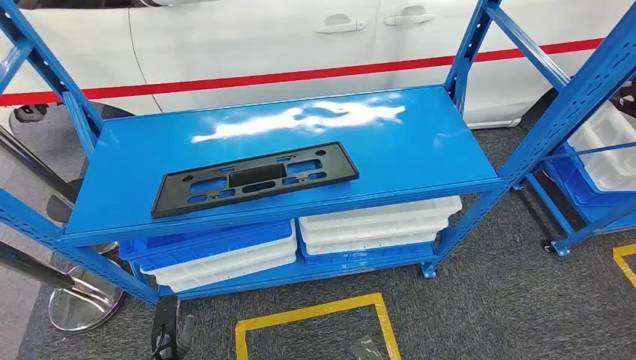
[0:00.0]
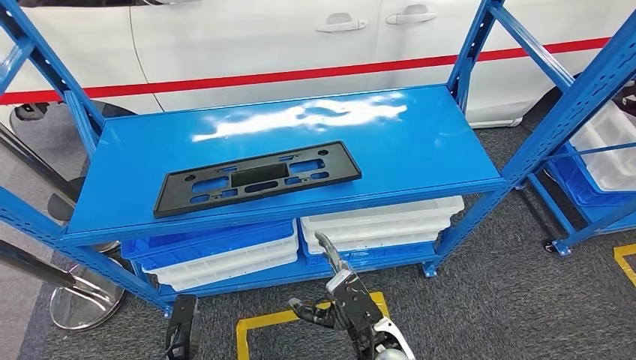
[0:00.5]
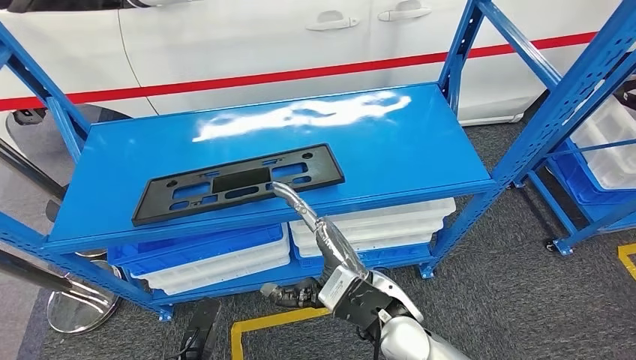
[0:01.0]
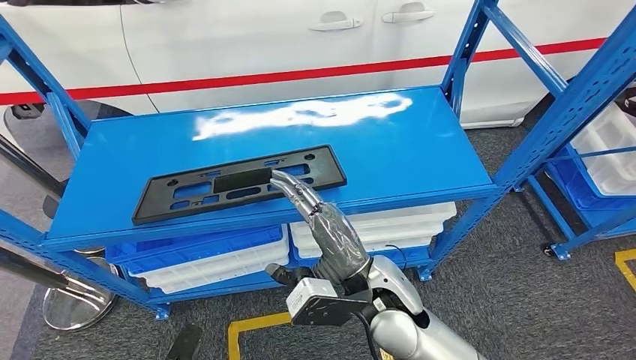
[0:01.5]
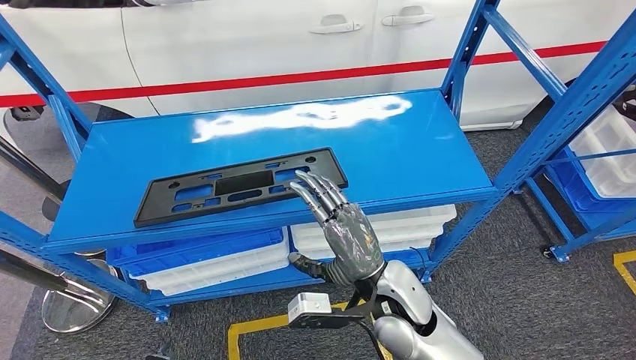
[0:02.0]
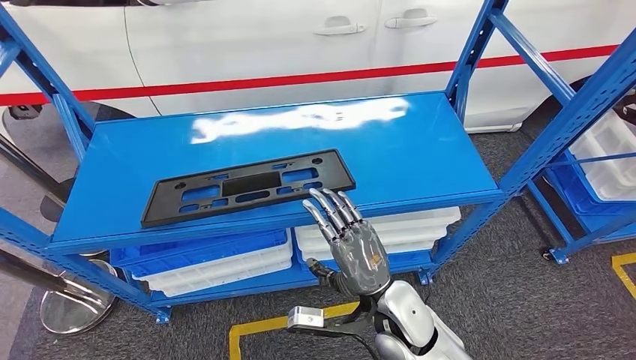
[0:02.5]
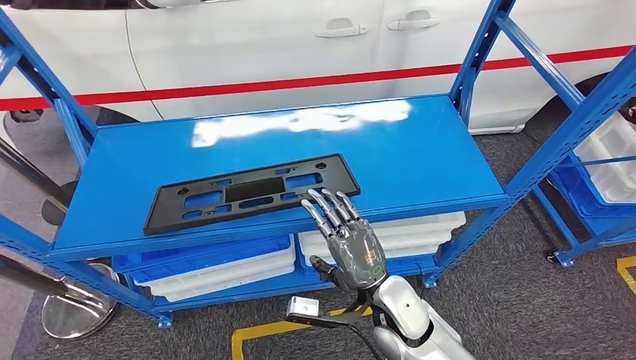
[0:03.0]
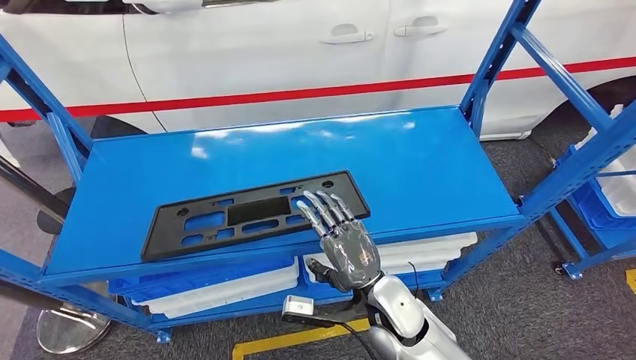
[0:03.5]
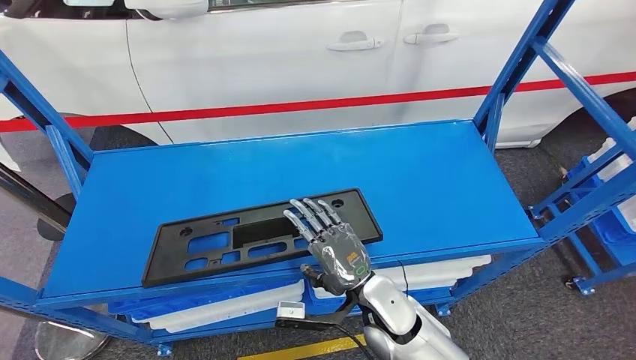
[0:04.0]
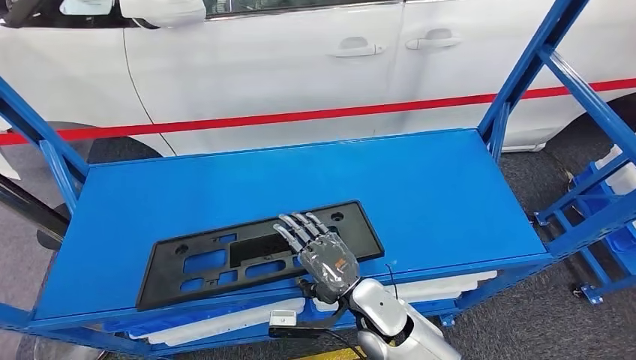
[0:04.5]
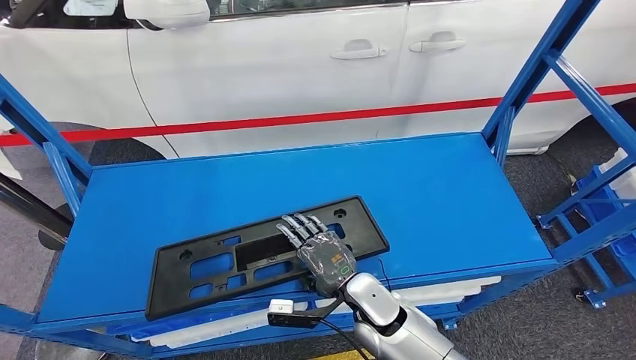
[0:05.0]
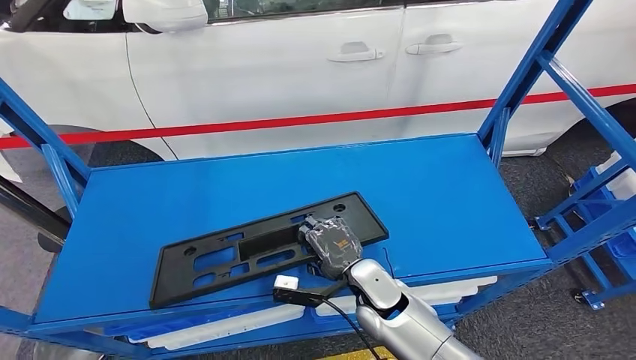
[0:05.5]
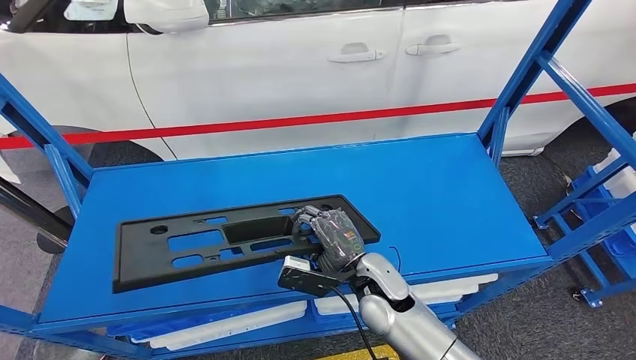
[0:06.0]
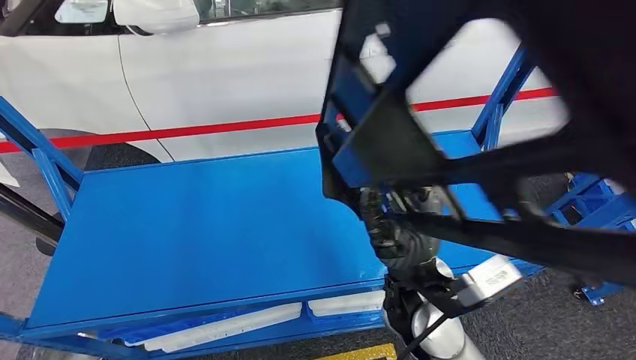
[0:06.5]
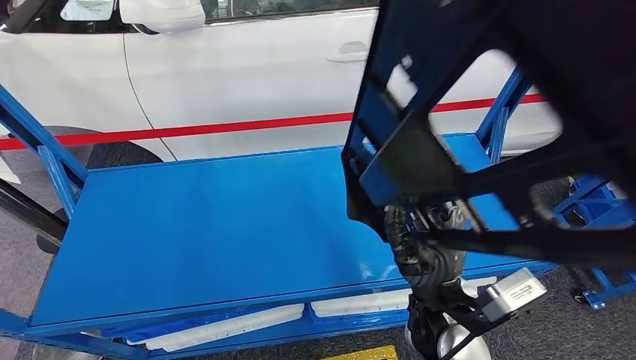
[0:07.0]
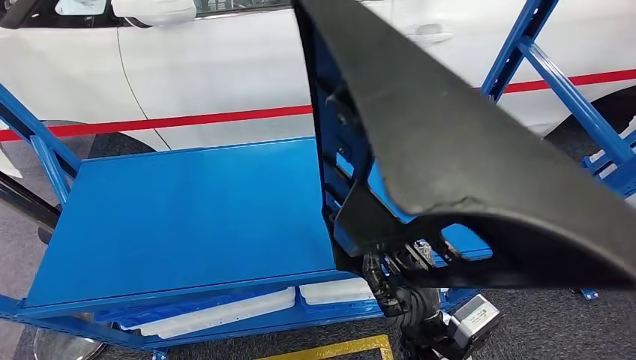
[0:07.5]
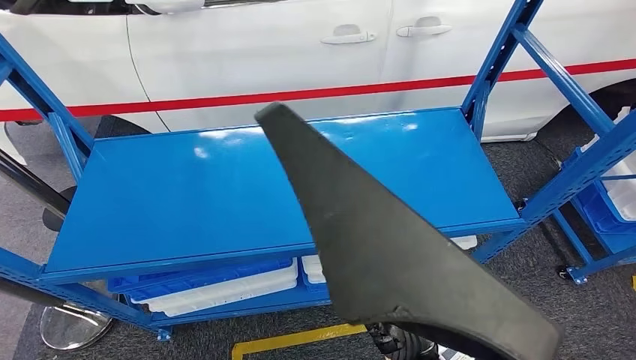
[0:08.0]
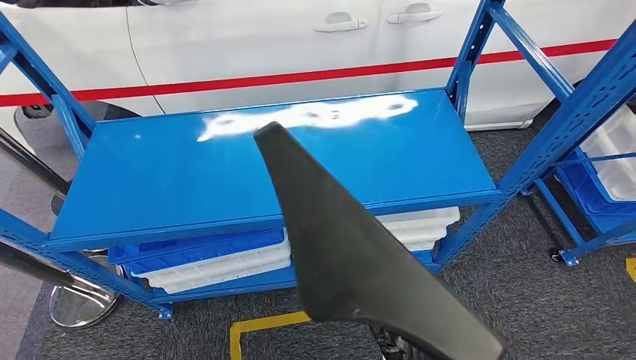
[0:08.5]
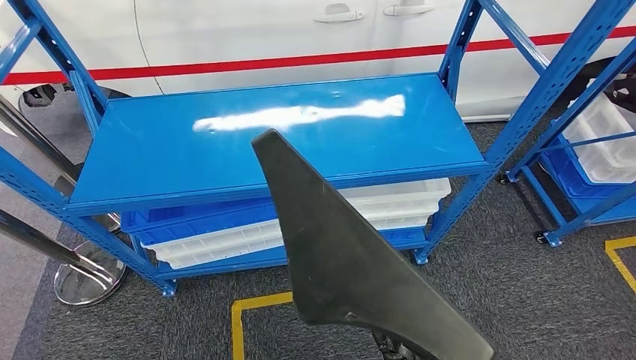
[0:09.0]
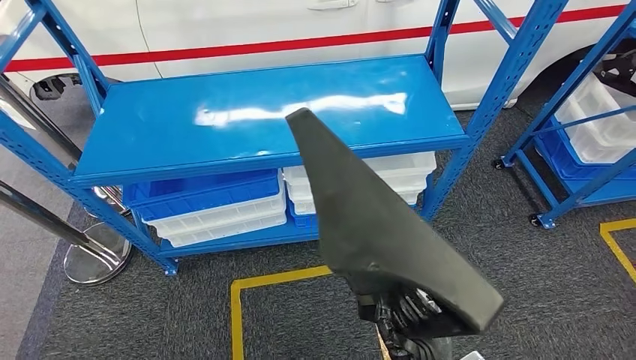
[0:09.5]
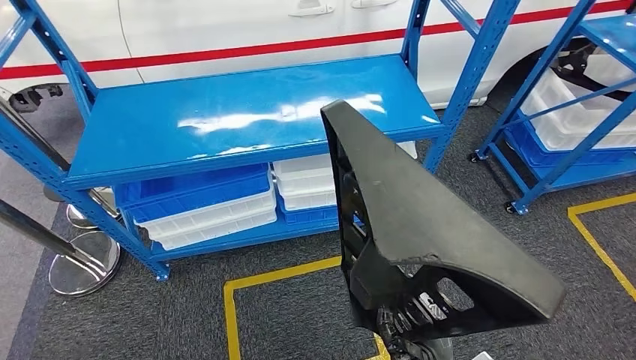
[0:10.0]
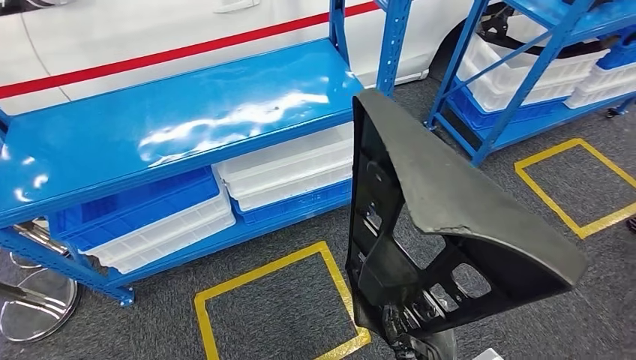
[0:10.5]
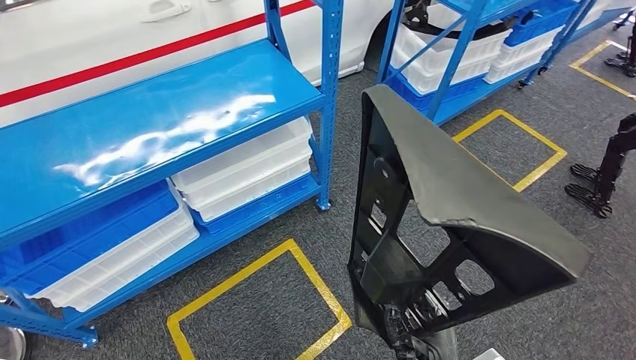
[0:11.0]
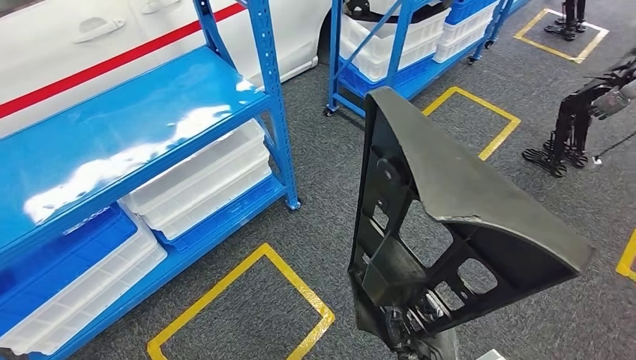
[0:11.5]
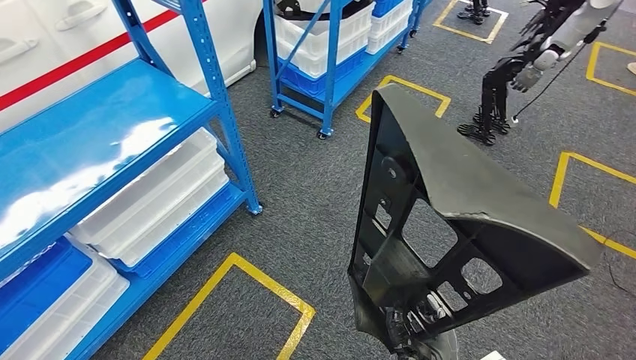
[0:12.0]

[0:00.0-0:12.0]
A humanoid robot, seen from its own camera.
Step, 0:00.0 to 0:06.0: Pick up the large material from the shelf.

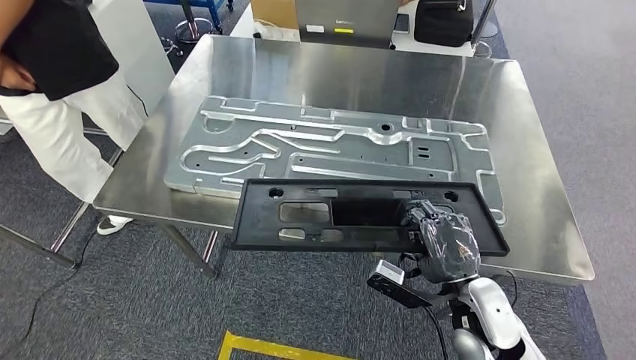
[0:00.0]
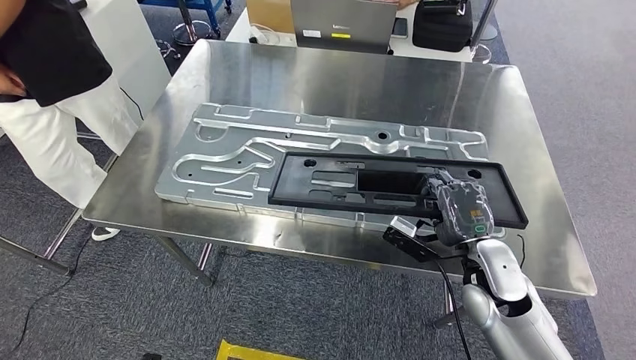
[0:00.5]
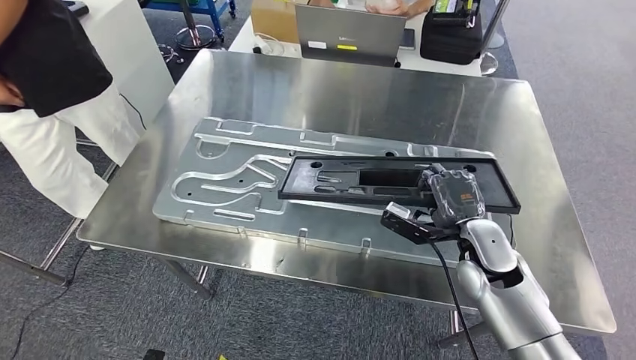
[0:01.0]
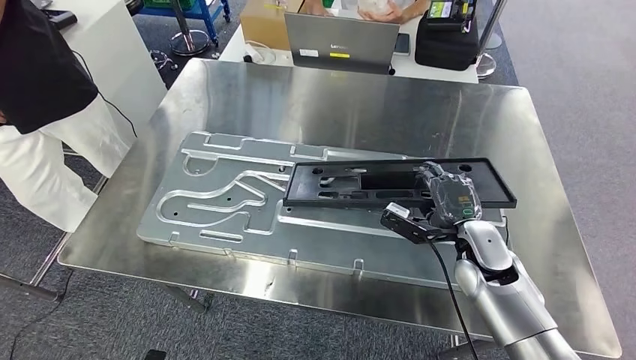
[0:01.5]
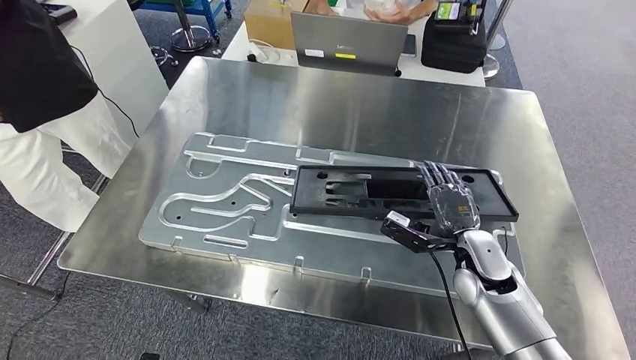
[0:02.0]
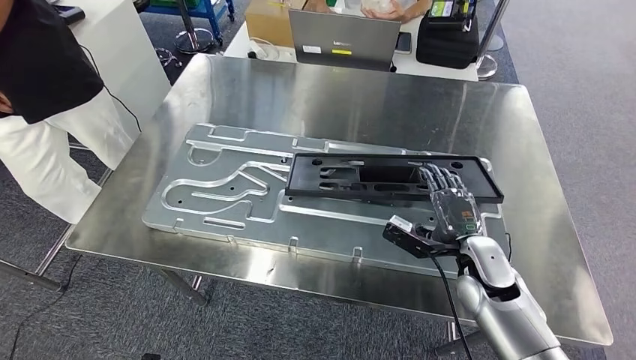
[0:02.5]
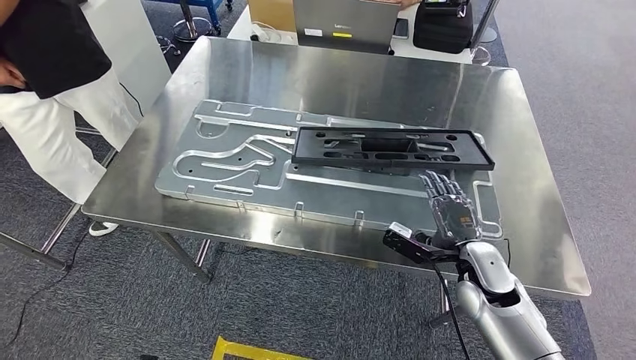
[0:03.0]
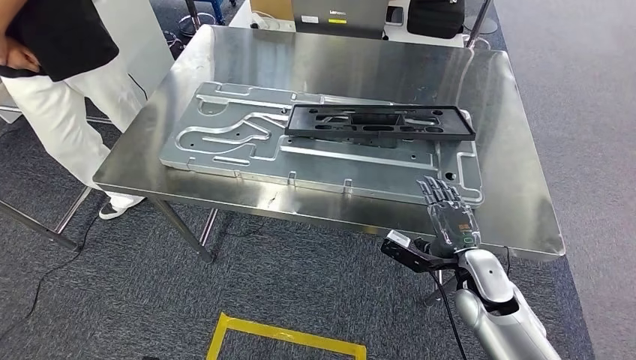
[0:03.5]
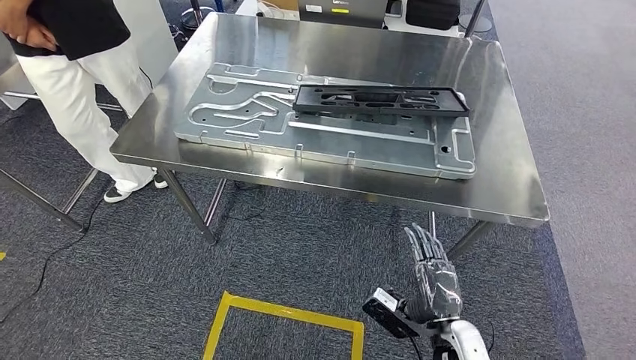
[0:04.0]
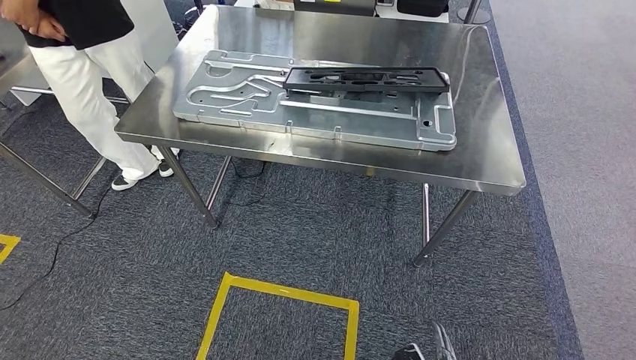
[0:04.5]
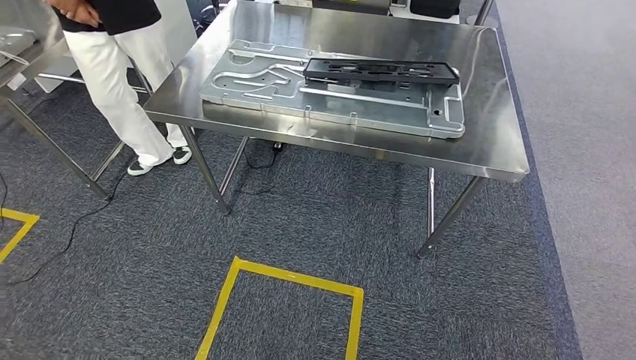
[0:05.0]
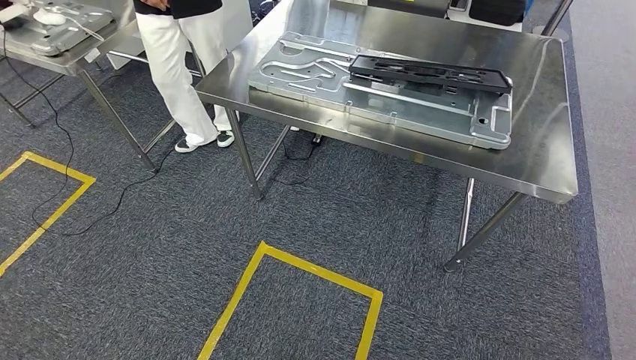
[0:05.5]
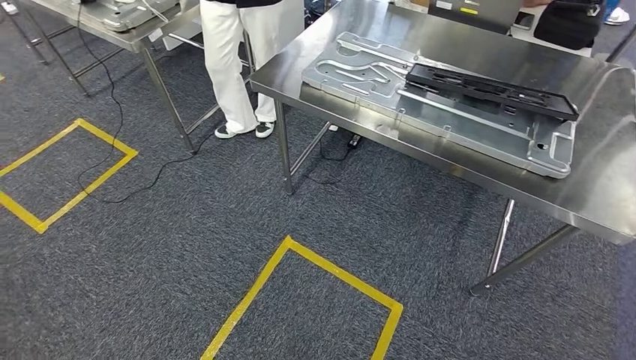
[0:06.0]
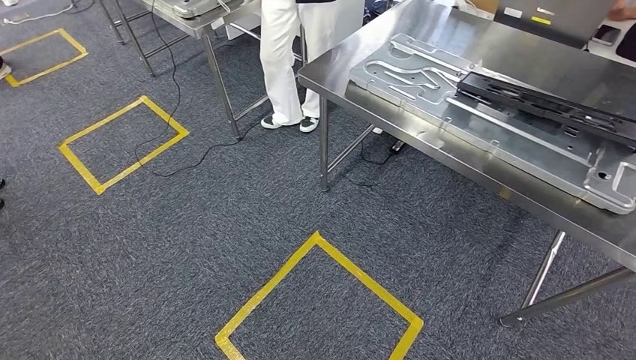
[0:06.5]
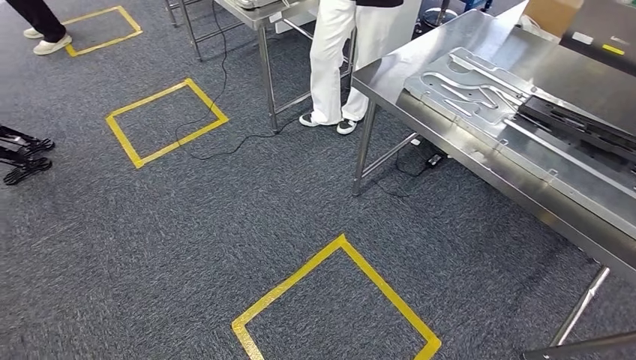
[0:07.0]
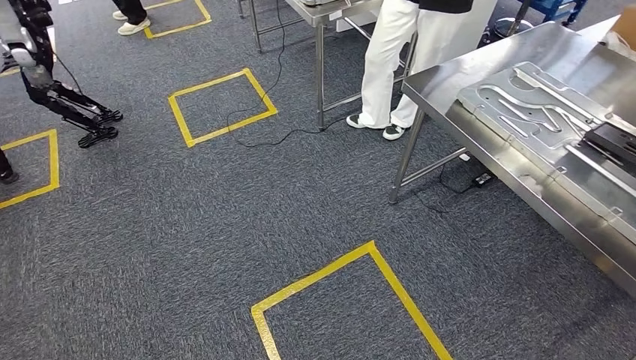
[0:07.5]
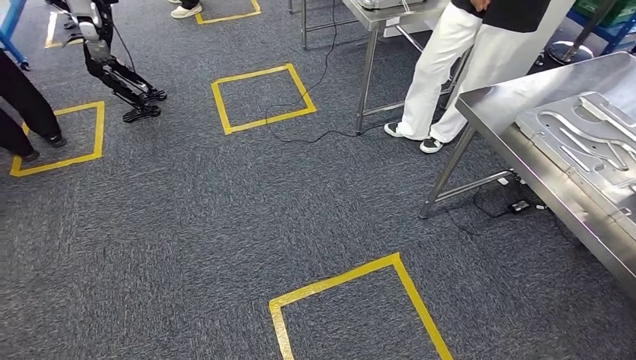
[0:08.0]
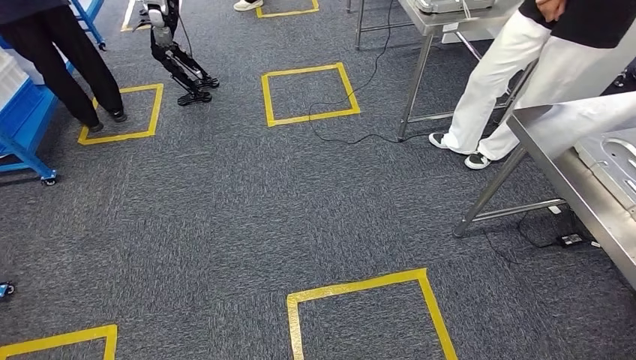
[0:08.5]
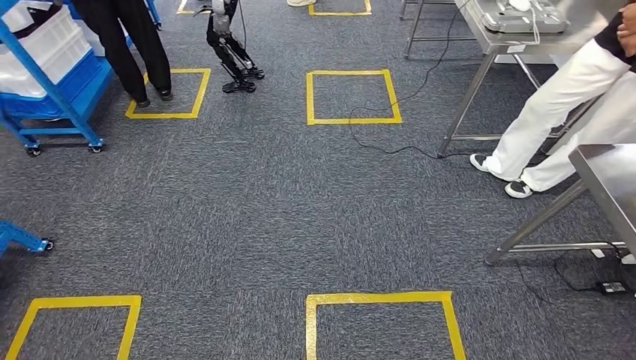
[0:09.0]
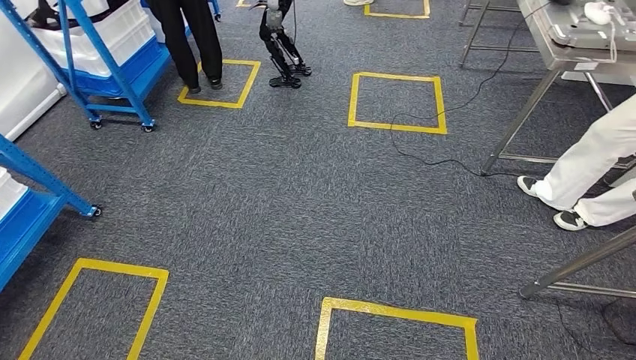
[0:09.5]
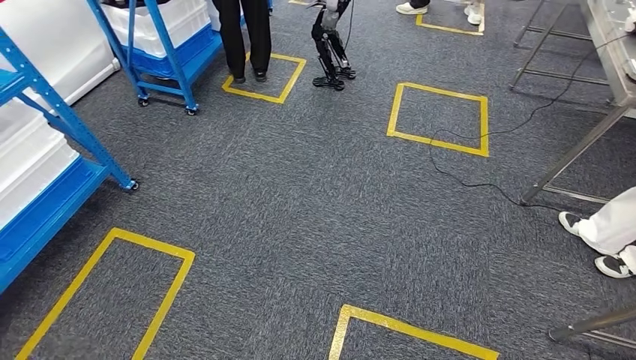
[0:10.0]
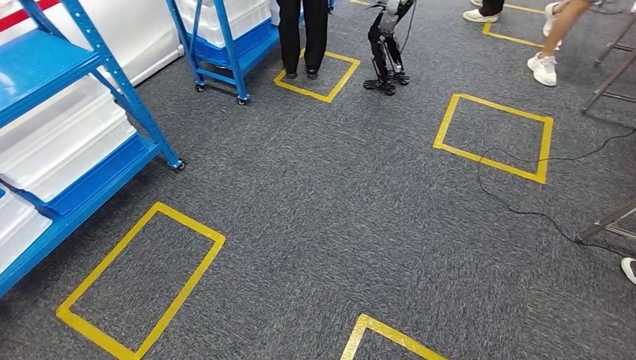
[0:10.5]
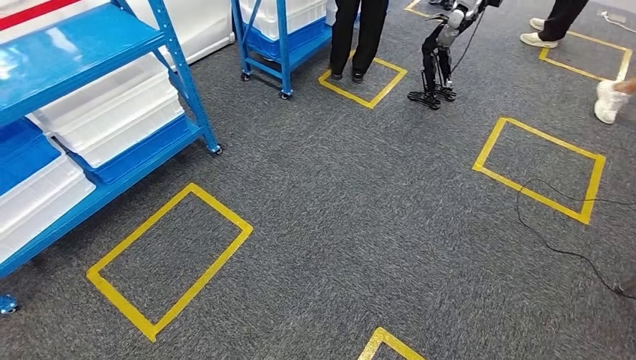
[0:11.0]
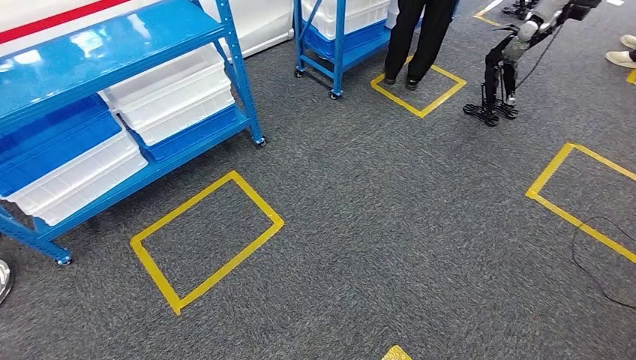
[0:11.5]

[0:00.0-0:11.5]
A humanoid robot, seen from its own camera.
Step, 0:00.0 to 0:03.0: Insert the large material into the corresponding slot on the workbench.
